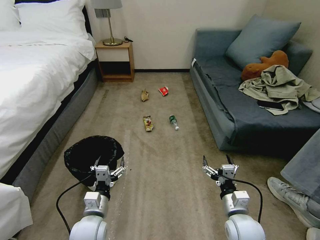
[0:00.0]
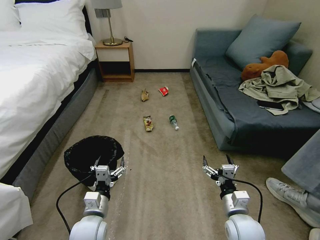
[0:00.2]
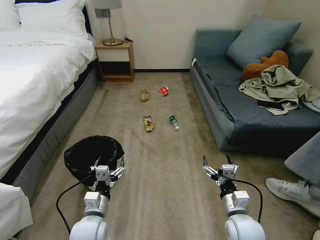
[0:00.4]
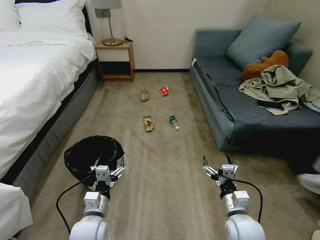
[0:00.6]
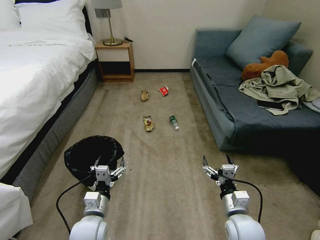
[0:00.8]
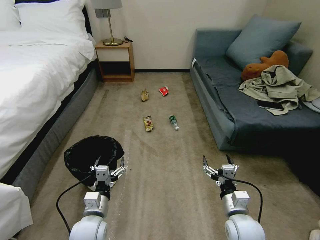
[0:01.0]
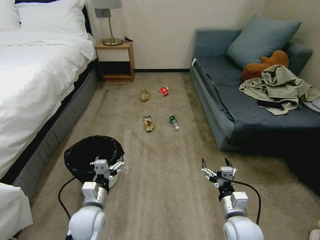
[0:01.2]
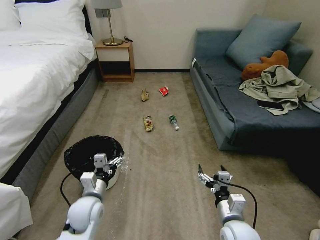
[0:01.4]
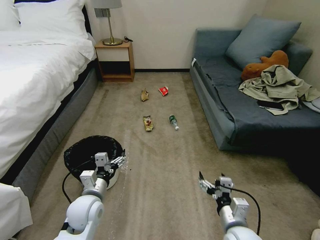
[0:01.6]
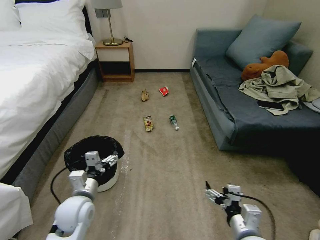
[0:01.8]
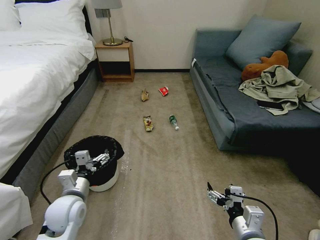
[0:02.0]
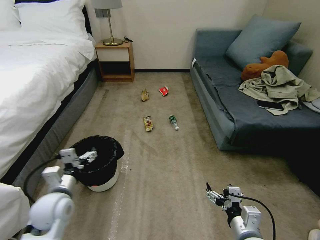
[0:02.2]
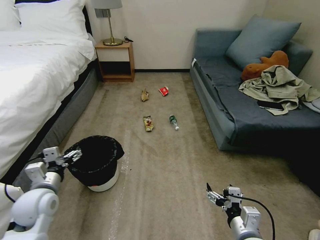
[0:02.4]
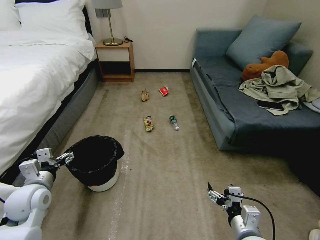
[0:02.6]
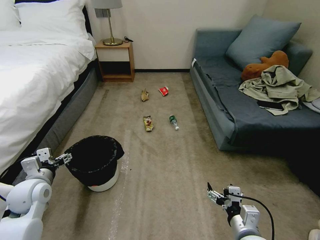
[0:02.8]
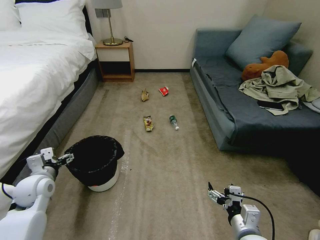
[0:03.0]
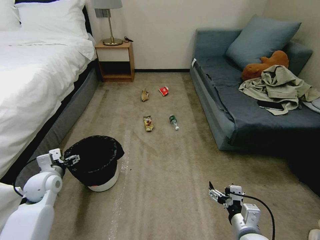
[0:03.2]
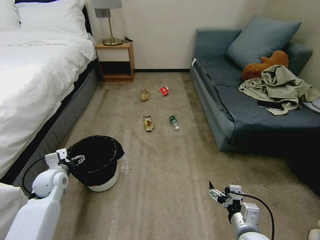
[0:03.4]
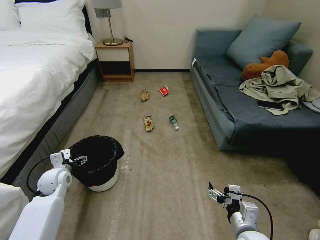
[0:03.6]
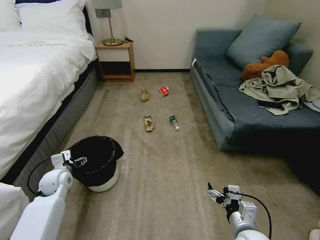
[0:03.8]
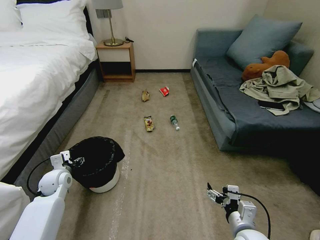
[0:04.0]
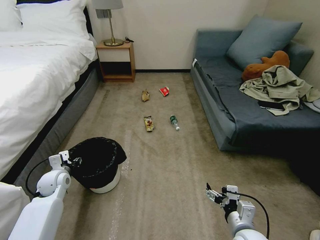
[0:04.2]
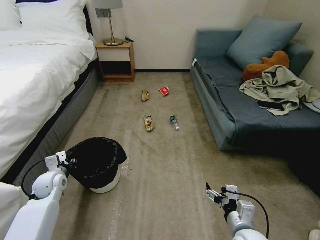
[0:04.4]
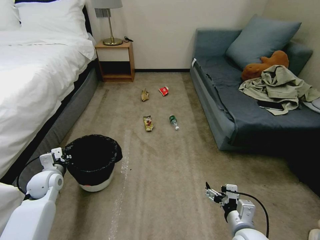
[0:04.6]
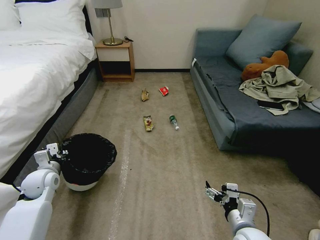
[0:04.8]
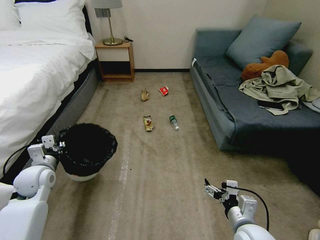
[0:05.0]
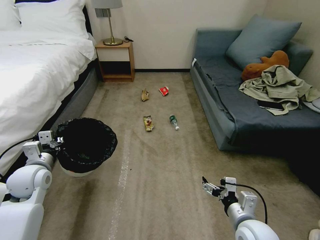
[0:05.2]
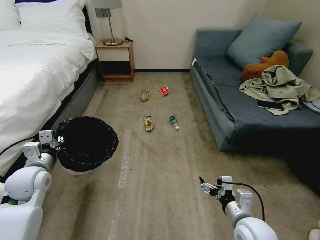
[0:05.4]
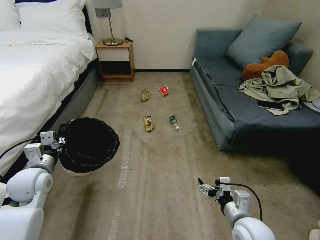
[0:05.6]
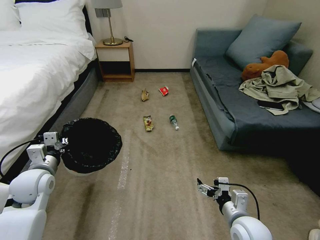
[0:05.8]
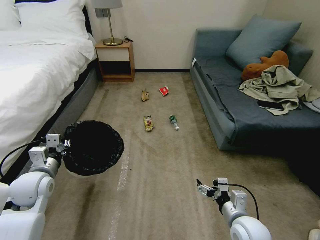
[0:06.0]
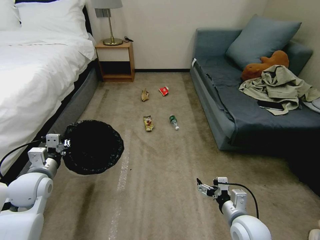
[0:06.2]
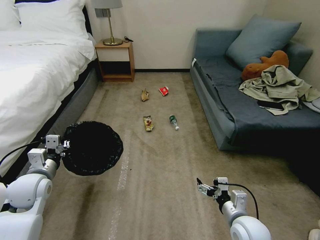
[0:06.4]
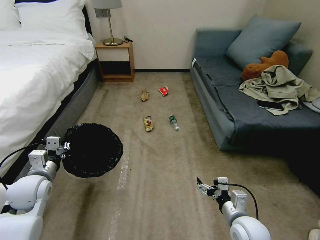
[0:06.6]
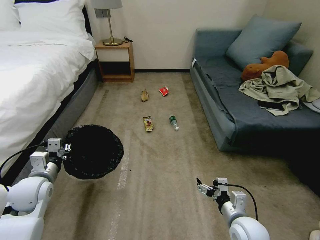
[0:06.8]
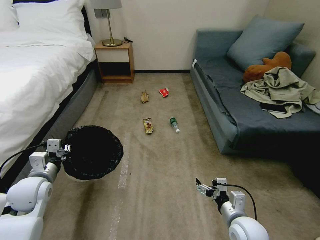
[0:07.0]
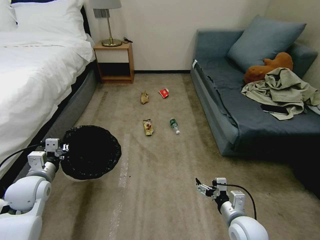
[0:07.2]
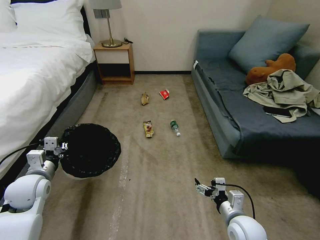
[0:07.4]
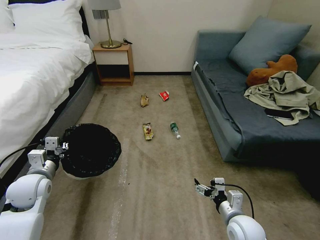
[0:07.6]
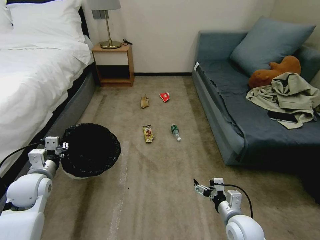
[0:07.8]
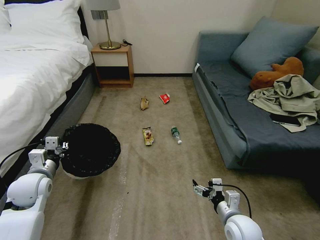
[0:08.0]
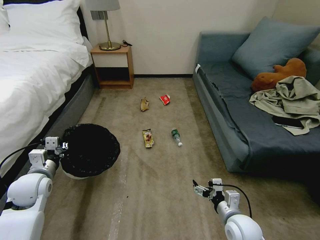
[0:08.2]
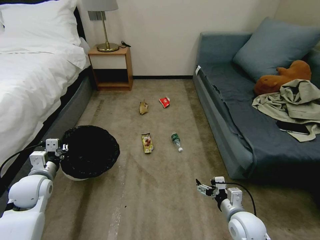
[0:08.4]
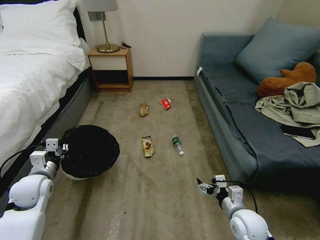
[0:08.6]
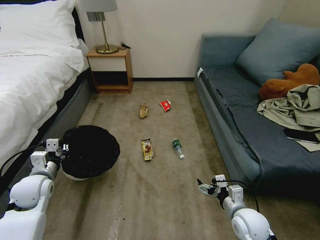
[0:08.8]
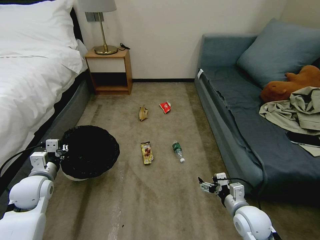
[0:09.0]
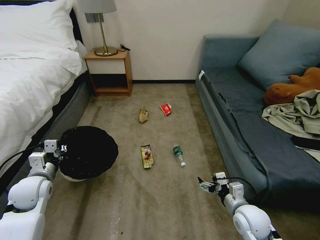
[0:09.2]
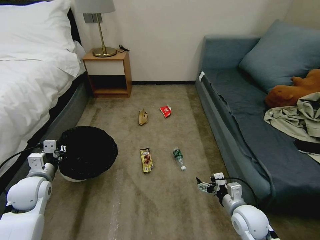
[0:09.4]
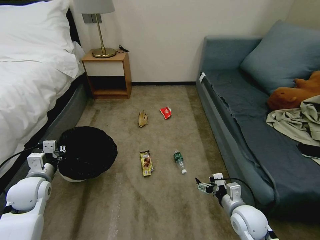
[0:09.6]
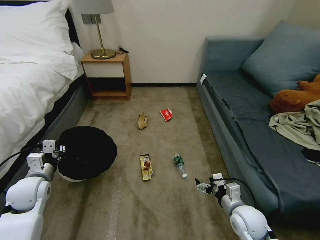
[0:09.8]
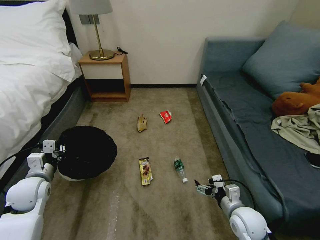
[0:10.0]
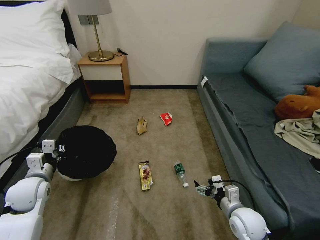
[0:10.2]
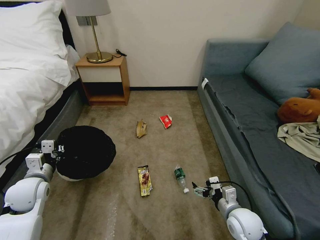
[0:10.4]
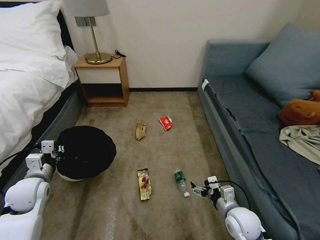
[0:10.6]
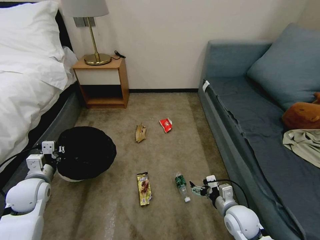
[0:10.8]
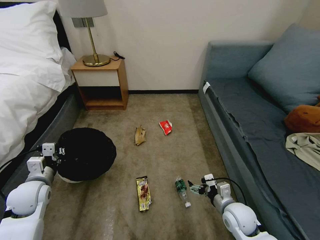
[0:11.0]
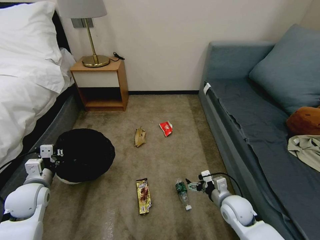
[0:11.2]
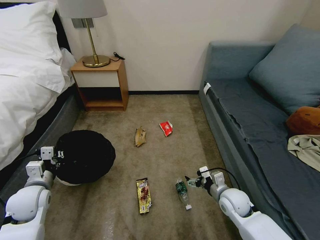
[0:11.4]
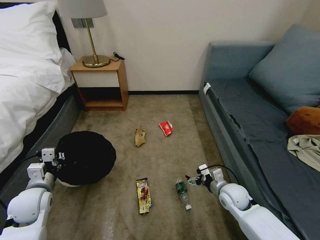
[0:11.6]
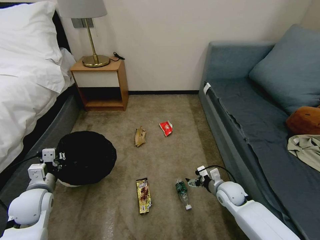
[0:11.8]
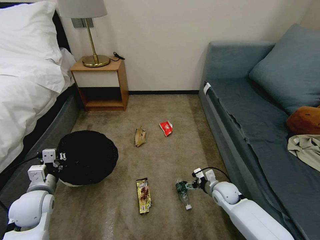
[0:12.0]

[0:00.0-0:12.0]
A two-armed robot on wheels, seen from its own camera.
Task of the whole recording: Pick up the trash bin, then pick up the garbage on the floor and place it into the trash bin.
0:01.6 to 0:03.0: The left gripper shifts roughly 15 cm to the left.
0:03.0 to 0:04.4: The left gripper heads downward, covering approximately 5 cm, and closes.
0:04.4 to 0:06.0: The left gripper goes approximately 10 cm upward and backward.
0:06.0 to 0:07.6: The grippers stay close to where they were, moving slightly.
0:10.4 to 0:12.0: The right gripper heads forward and downward, covering roughly 15 cm.

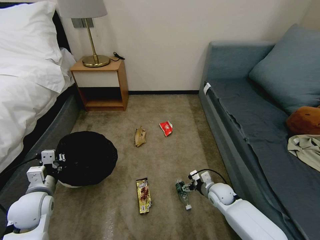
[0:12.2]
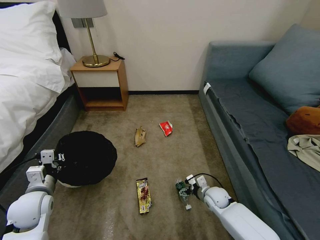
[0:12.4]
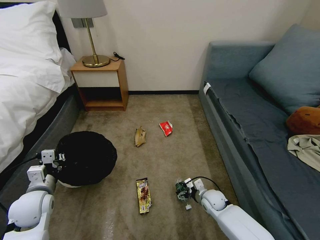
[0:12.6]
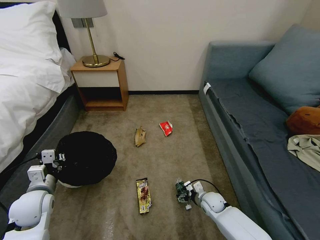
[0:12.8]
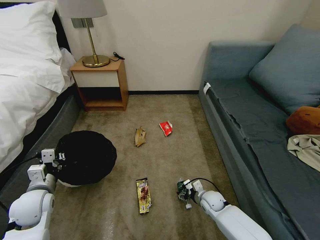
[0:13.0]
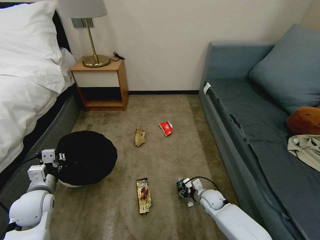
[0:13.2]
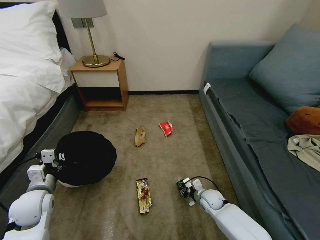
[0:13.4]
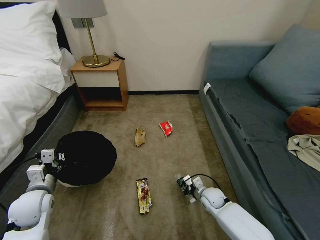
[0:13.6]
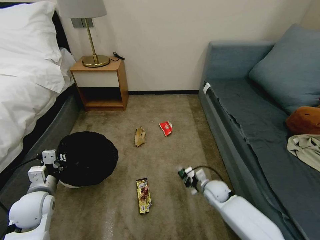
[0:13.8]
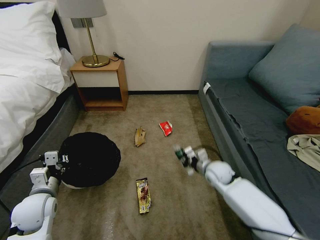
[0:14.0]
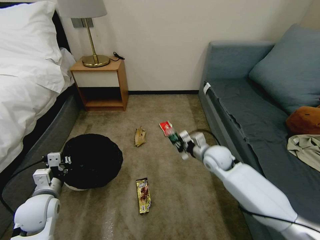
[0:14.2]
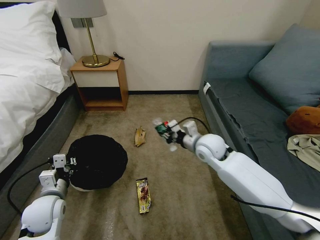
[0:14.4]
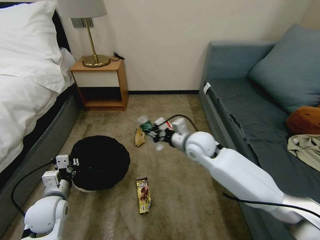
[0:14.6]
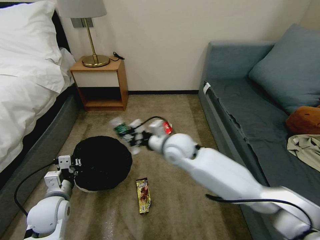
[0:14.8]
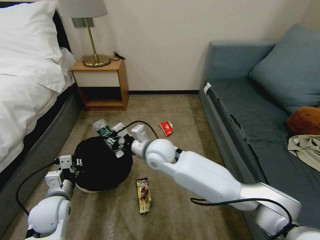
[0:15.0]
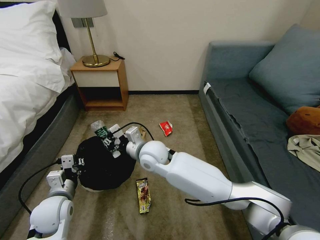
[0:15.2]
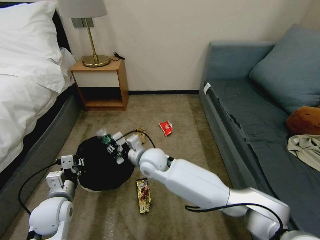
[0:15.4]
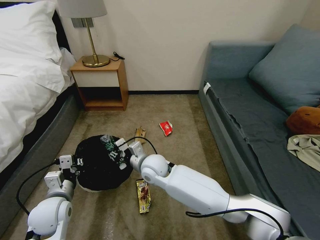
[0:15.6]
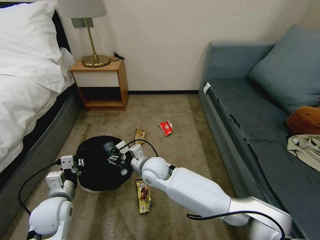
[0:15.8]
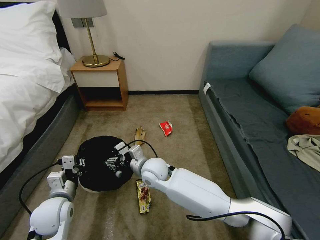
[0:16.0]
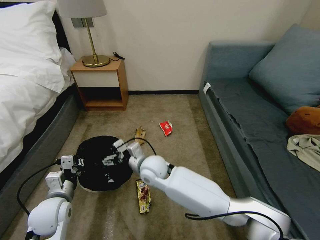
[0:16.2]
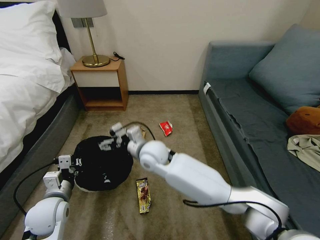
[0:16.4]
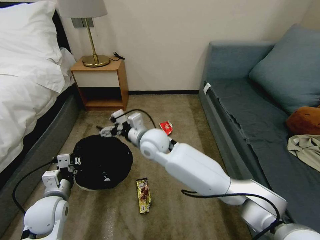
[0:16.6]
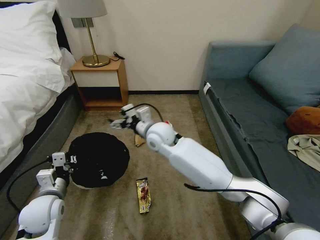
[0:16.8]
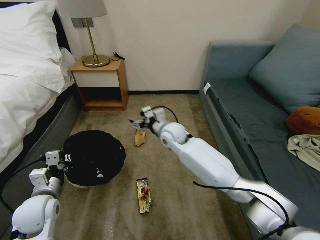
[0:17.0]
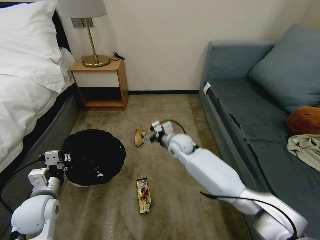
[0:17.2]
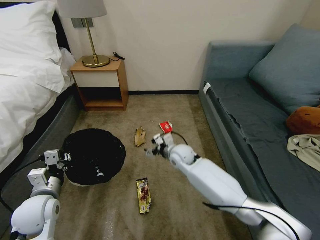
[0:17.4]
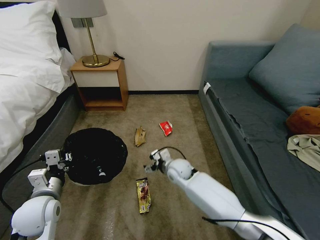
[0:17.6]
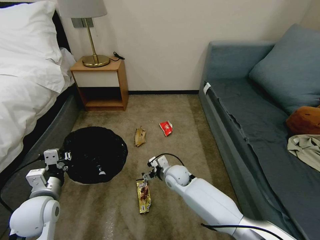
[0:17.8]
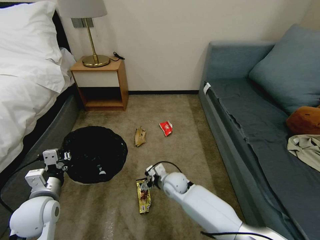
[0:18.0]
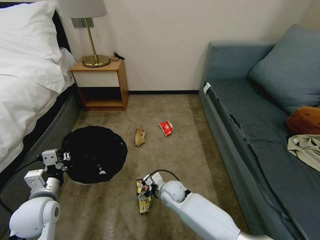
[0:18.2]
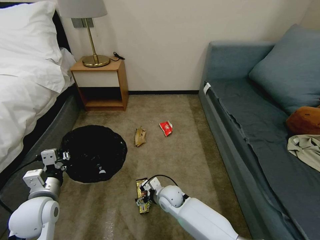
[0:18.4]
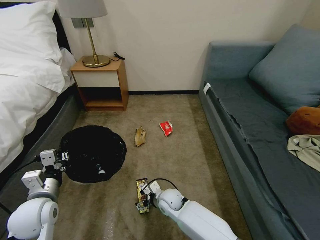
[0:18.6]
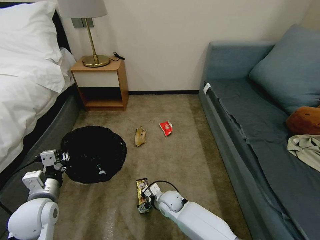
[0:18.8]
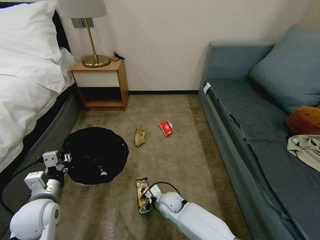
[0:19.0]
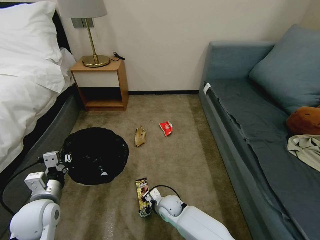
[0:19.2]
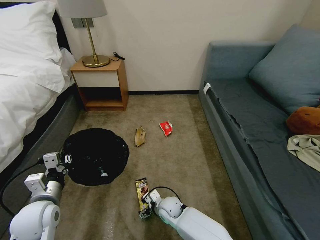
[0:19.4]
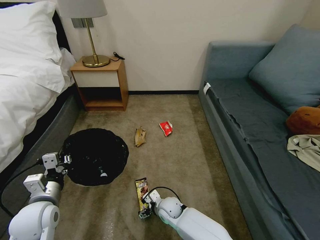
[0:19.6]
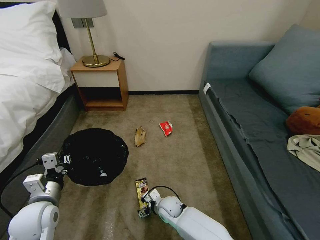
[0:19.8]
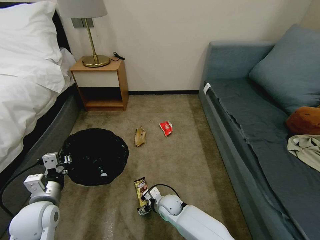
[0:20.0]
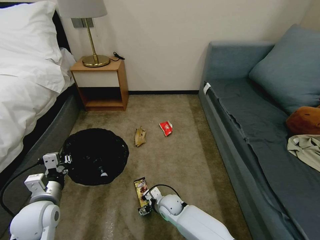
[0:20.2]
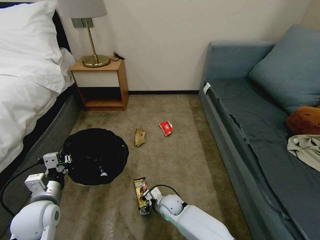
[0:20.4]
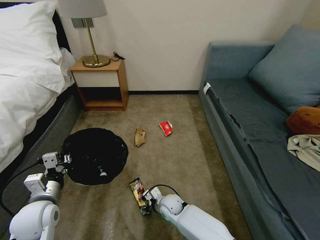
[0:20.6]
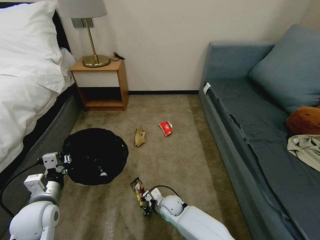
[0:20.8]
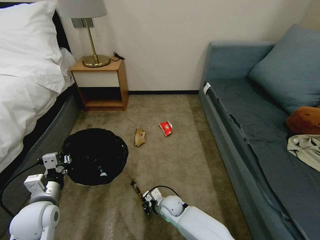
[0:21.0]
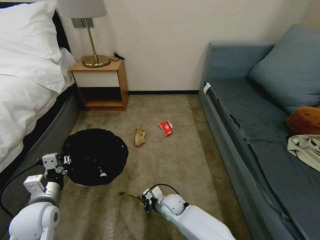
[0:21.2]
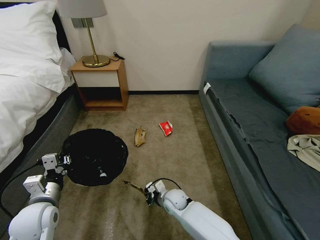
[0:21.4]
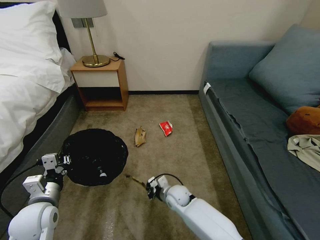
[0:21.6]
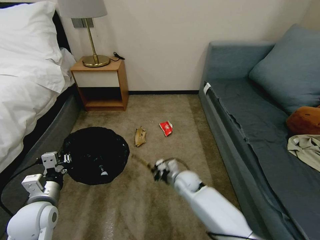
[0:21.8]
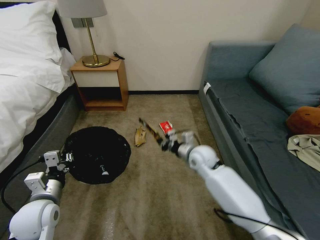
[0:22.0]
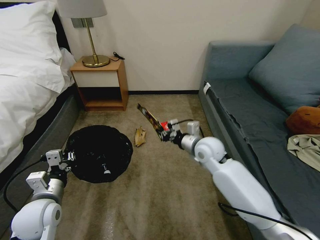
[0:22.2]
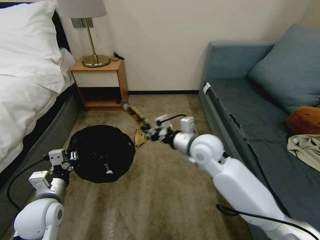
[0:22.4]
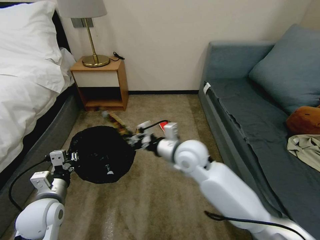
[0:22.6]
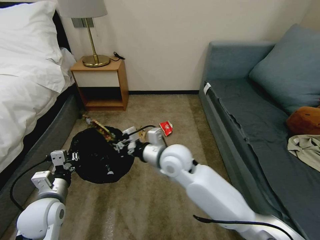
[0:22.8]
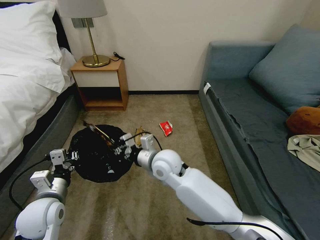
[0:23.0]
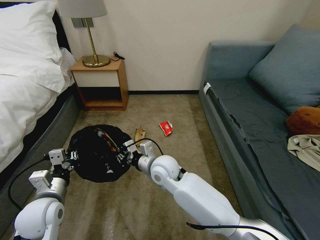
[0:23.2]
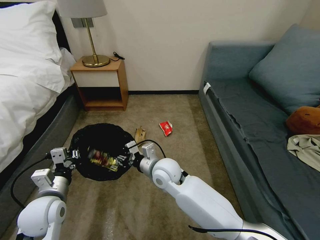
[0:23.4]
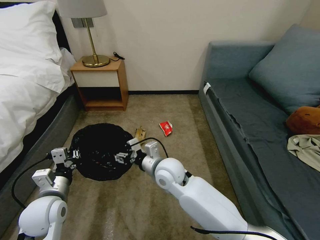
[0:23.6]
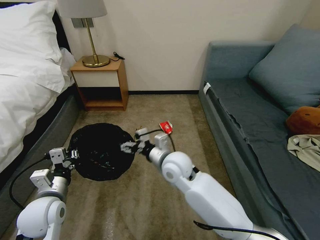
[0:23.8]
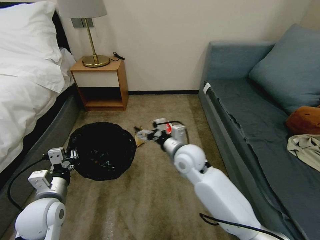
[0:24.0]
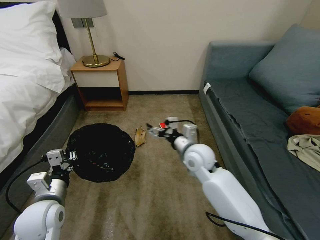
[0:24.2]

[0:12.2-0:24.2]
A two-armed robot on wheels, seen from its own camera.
Task of the whole recording: Pick up the trash bin, then pick up the garbage on the floor and place it into the trash bin.
0:12.2 to 0:13.8: The right gripper closes.
0:13.8 to 0:15.2: The left gripper goes approximately 5 cm to the right. Meanwhile the right gripper goes about 35 cm to the left and upward.
0:15.2 to 0:16.6: The right gripper opens its fingers.
0:16.6 to 0:18.2: The right gripper travels downward by some 25 cm.
0:18.2 to 0:19.8: The right gripper travels downward by about 5 cm.
0:19.8 to 0:21.2: The right gripper closes its fingers.
0:21.2 to 0:22.6: The right gripper goes roughly 30 cm upward.
0:22.6 to 0:24.2: The right gripper goes to the left and returns, approximately 10 cm each way, and opens its fingers.
